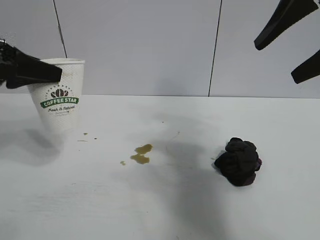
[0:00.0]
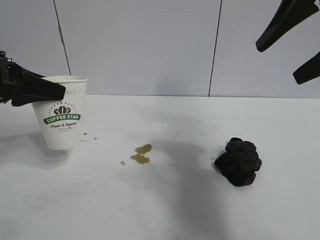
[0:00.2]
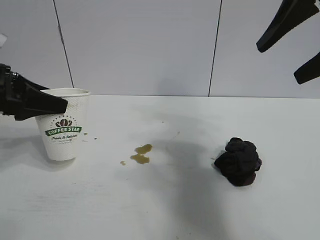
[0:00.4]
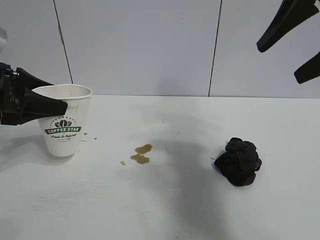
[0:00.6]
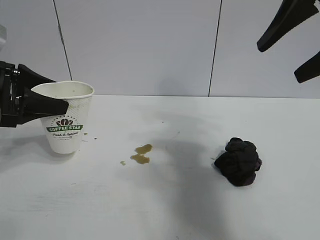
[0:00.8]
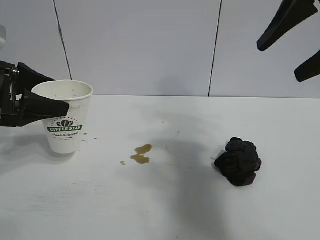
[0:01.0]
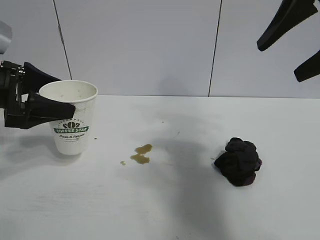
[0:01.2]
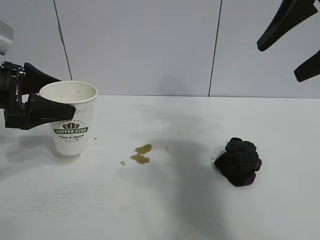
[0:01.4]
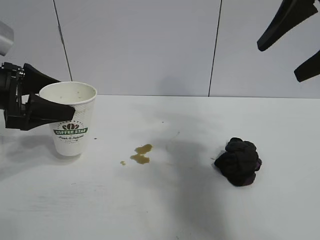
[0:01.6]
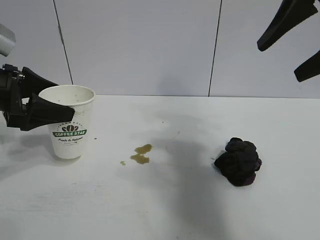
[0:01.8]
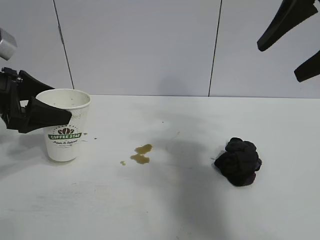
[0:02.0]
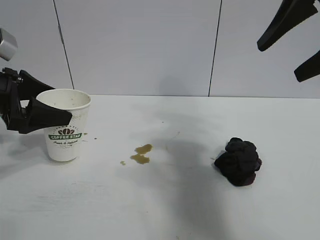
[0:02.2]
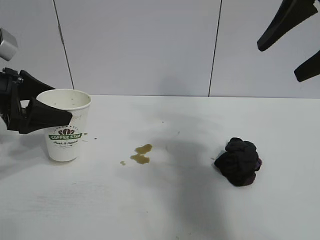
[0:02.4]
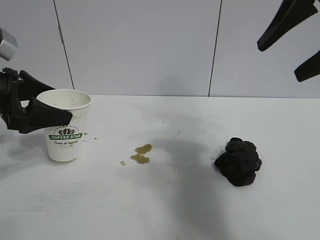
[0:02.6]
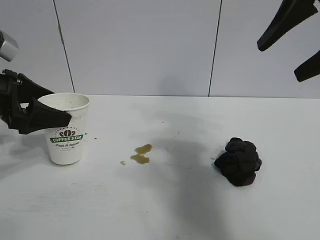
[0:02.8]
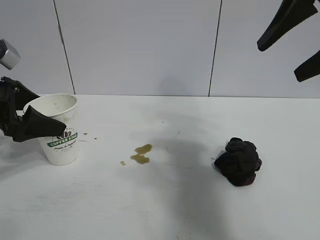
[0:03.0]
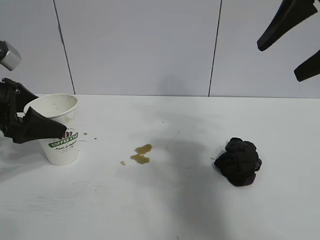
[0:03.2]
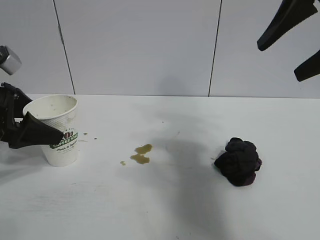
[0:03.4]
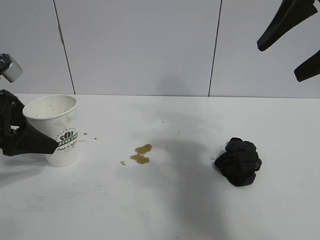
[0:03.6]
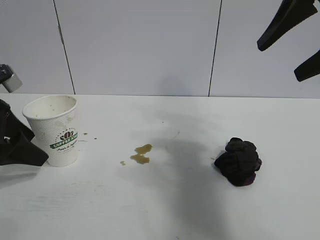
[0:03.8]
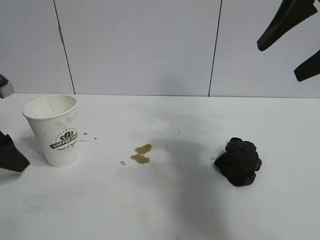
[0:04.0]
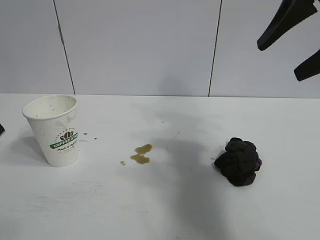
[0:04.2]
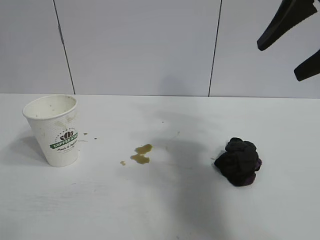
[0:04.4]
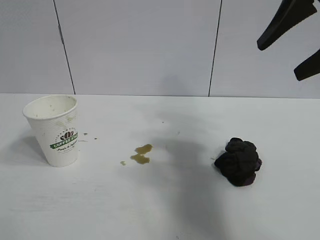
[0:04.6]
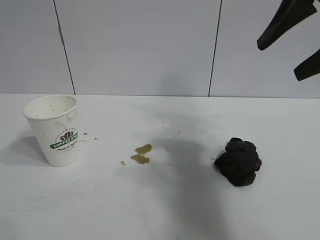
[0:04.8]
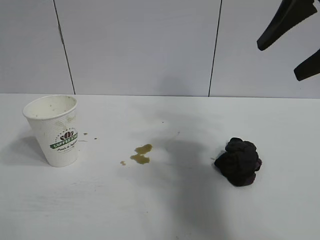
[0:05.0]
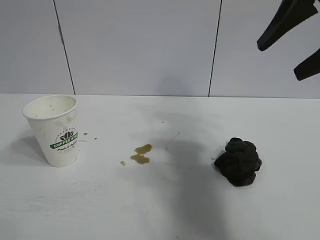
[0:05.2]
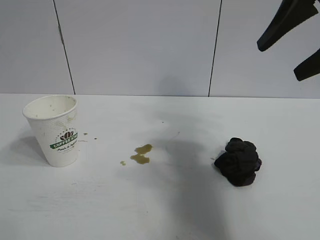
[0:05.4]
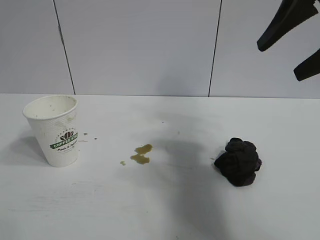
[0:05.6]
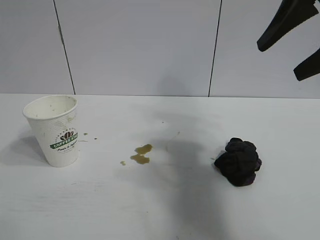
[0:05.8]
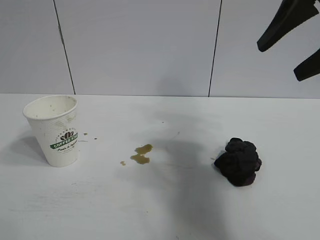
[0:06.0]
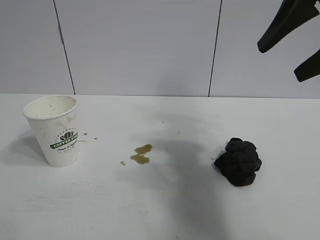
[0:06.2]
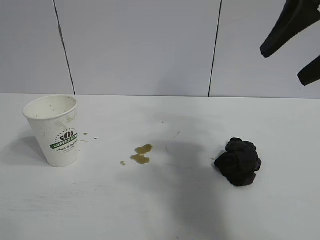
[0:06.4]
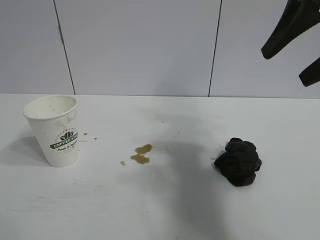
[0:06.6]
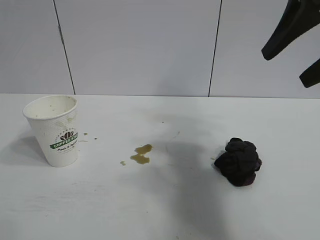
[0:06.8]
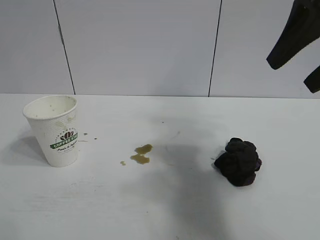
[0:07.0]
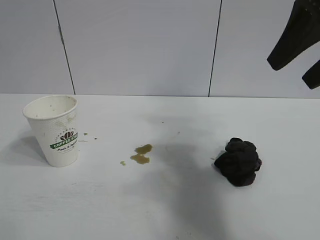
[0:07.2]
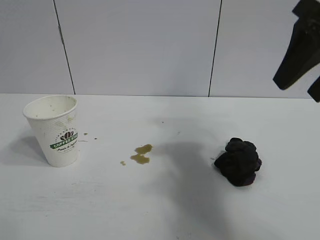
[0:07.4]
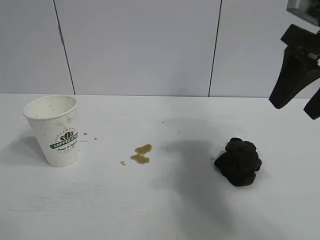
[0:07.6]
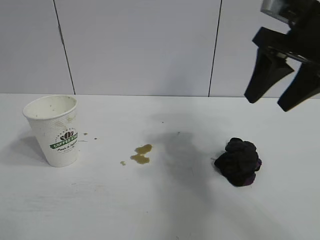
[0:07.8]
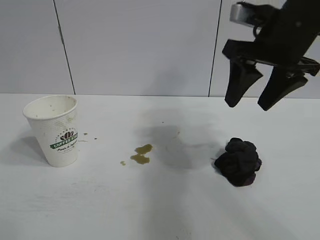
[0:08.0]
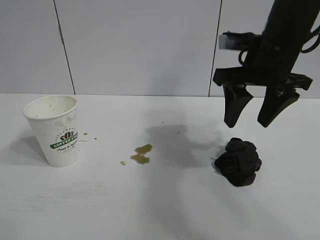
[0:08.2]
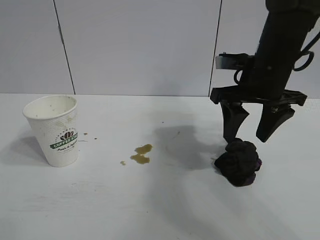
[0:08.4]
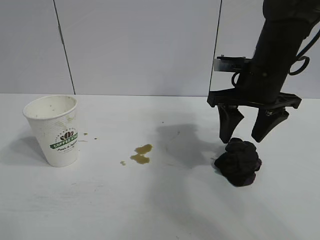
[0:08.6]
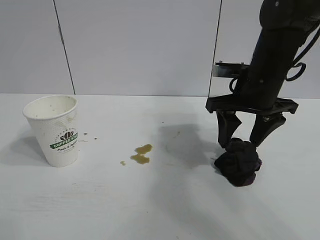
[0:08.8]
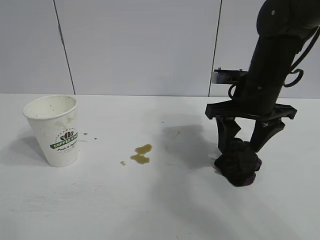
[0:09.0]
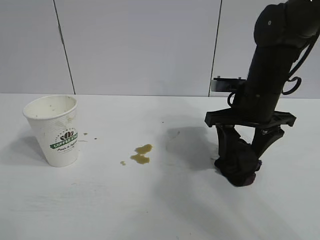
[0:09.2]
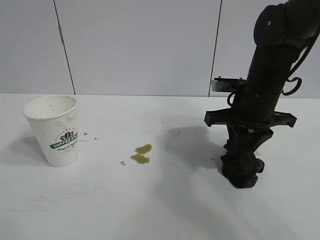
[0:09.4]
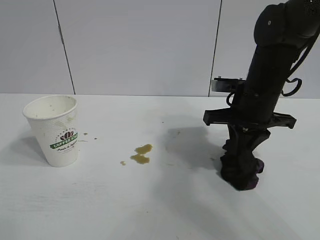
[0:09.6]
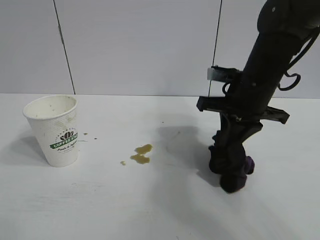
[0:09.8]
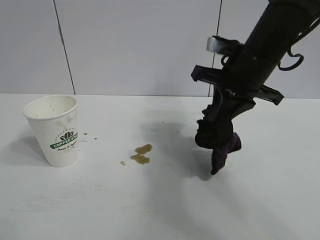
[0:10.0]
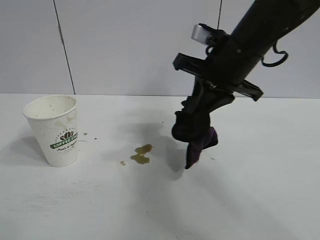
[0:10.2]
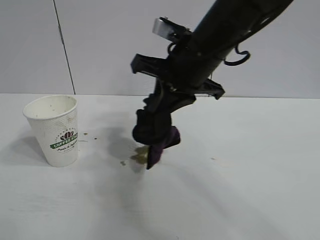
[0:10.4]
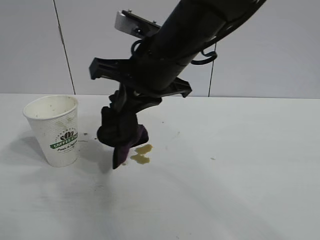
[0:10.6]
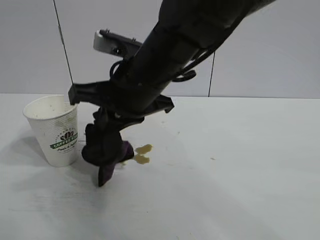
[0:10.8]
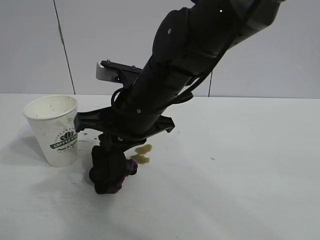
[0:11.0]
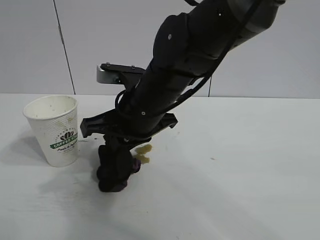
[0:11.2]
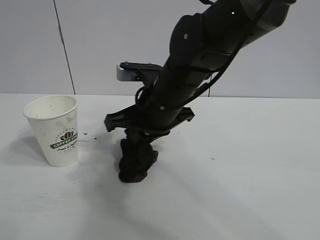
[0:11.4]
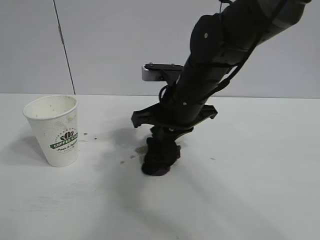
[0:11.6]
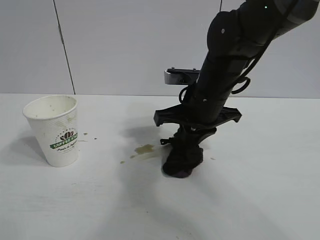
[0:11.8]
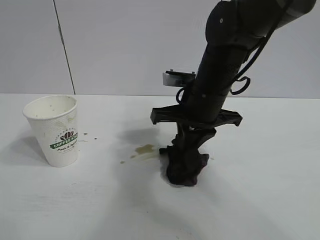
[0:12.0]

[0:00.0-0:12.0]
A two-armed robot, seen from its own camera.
Task of the whole recording: the left gripper pick up the fallen cup and place it upright, the right gripper grasp the black rag and wipe the stain on the table, the right gripper put the black rag back in its original position.
Step, 0:00.0 to 0:03.0: Stand the paper cup upright with left gripper.
Step, 0:03.2 to 0:09.4: Grasp the rag with right gripper.

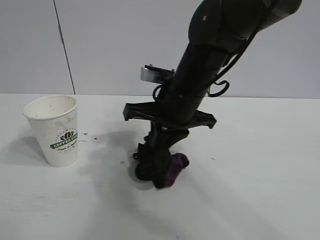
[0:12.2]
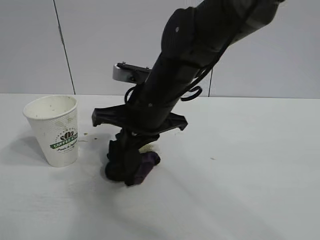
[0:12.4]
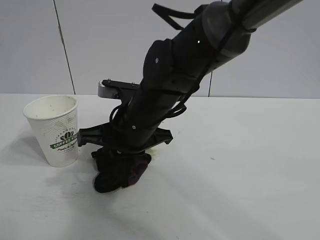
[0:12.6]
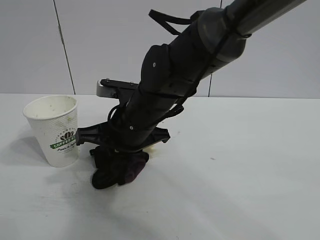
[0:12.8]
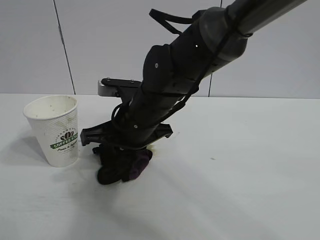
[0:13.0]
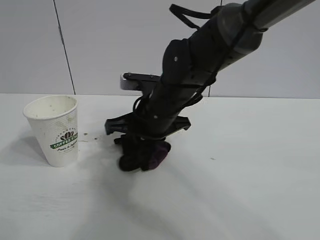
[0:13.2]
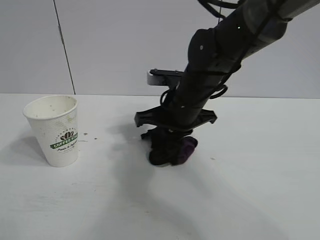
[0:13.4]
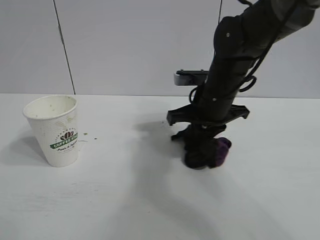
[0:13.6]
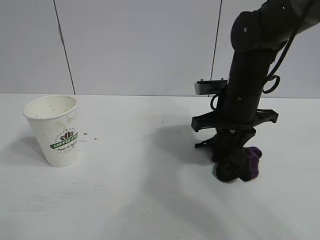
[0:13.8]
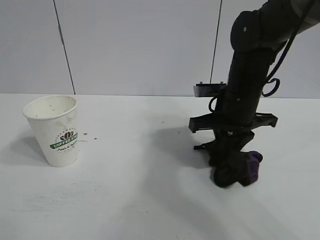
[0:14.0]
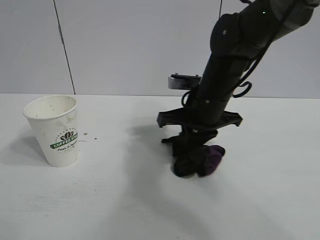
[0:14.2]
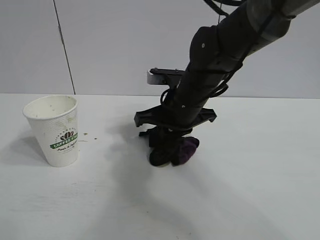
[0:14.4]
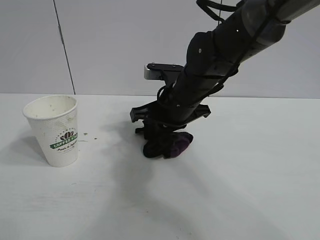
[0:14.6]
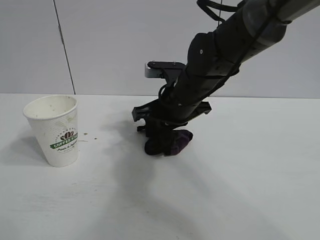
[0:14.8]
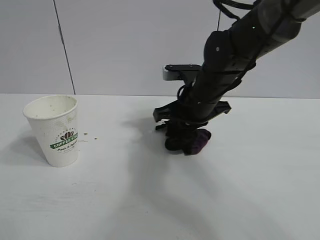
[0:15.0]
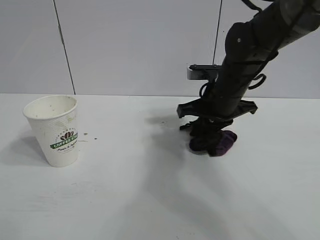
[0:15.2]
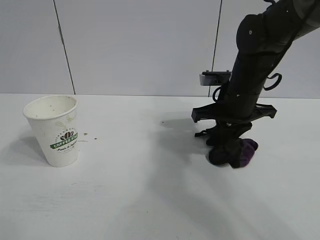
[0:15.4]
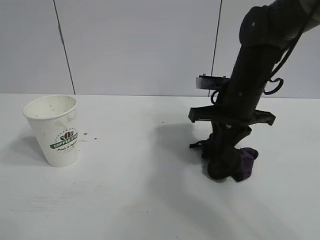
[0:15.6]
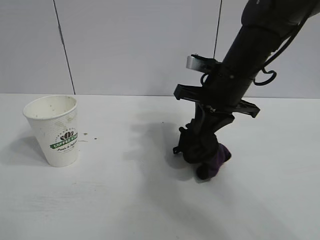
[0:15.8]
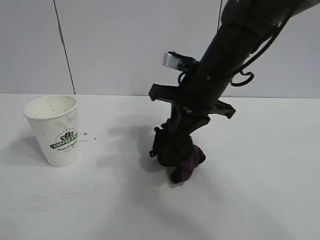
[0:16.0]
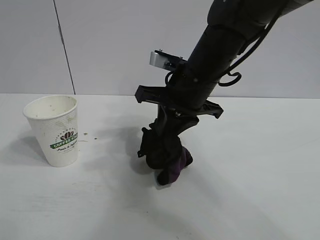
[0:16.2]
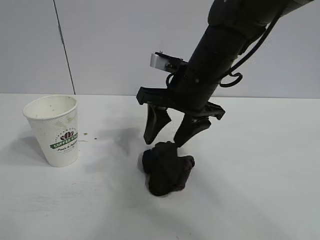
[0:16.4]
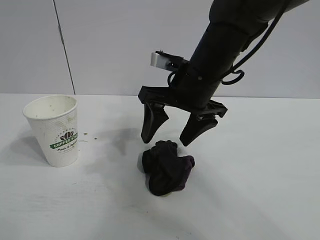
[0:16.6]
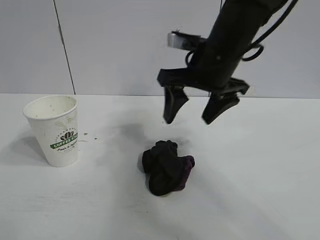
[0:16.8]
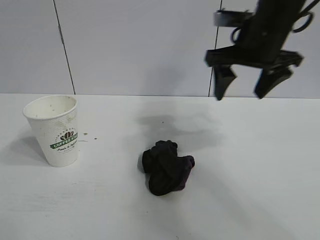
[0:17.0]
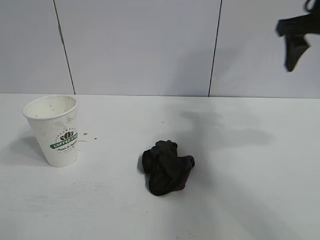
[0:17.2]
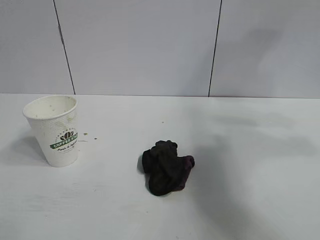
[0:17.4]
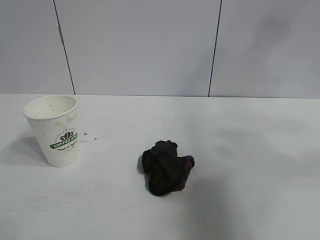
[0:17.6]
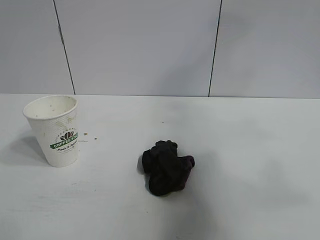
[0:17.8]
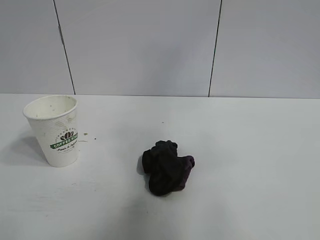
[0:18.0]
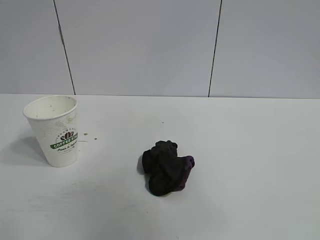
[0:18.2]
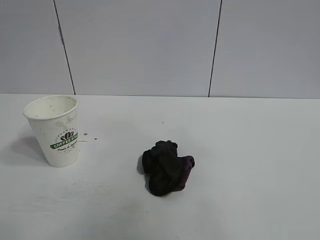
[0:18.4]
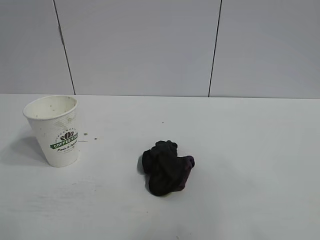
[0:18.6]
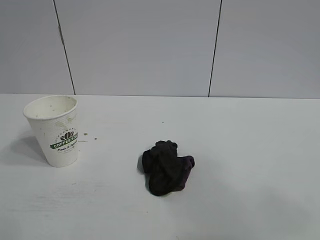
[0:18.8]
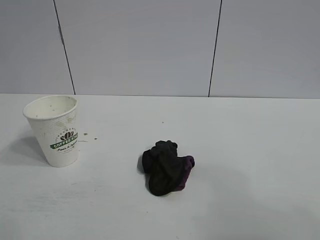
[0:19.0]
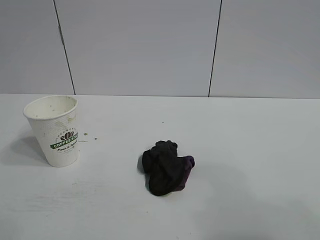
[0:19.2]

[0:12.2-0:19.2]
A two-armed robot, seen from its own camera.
Task of the whole recording: the left gripper pick up the fallen cup and place it upright, the right gripper grasp the black rag and wipe the stain on the table, the right gripper put the black rag back in its original position.
Step, 0:12.2 to 0:15.4: Wipe the stains off the table with the rag with right gripper.
Step, 0:15.6 to 0:16.4: Place the rag on the table with right gripper.
